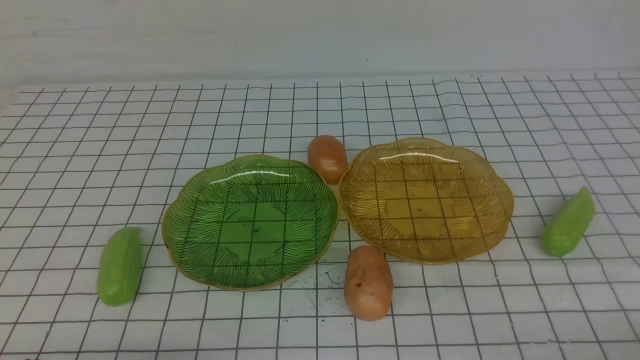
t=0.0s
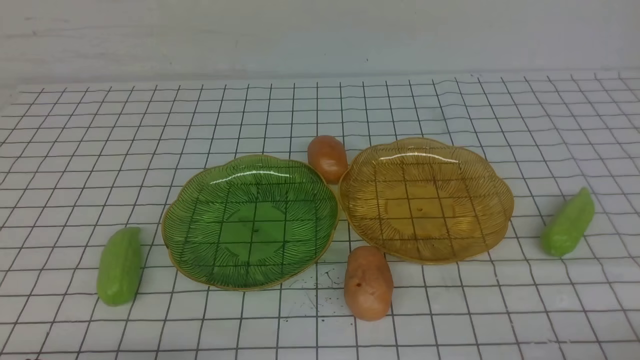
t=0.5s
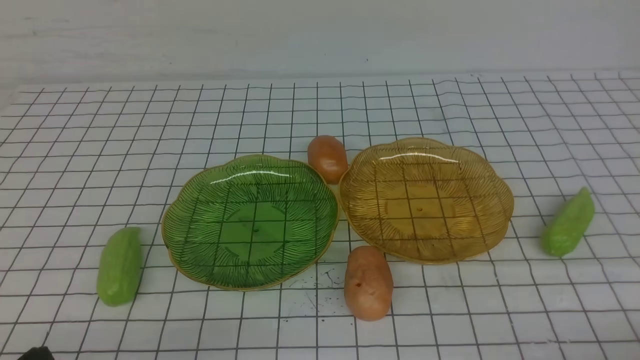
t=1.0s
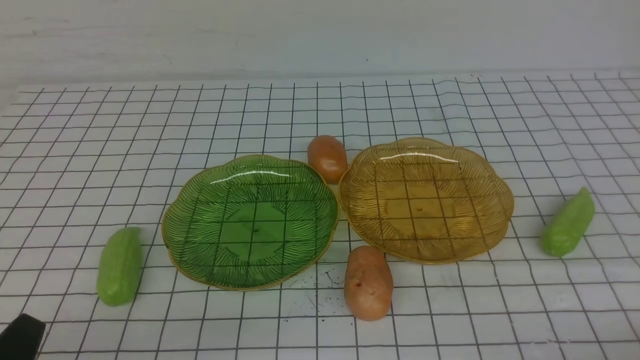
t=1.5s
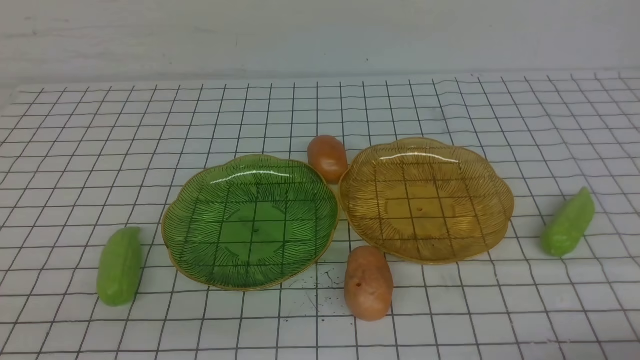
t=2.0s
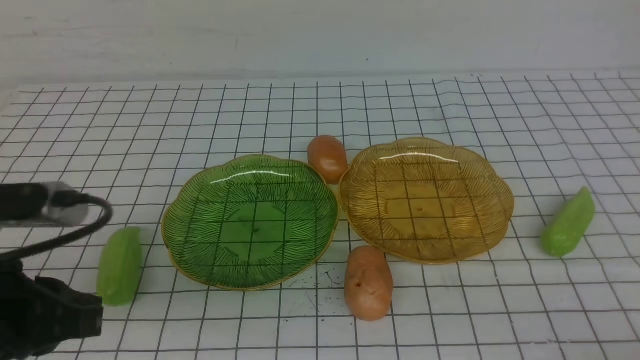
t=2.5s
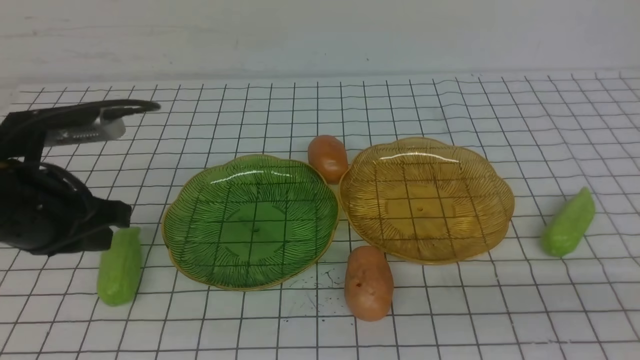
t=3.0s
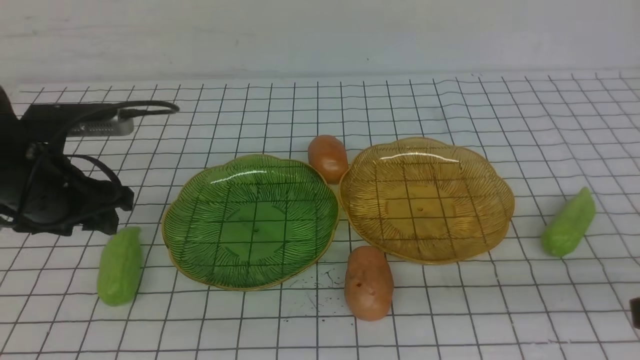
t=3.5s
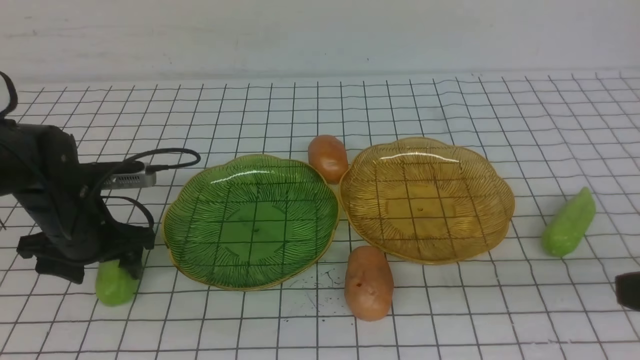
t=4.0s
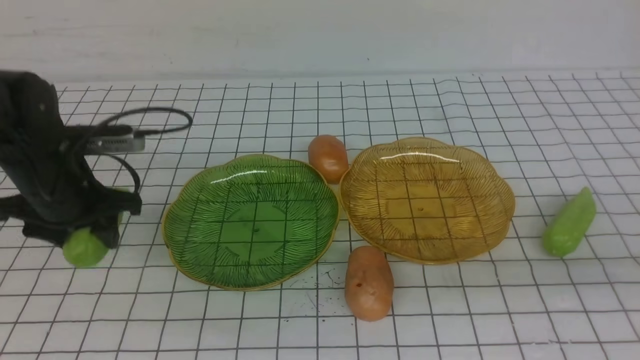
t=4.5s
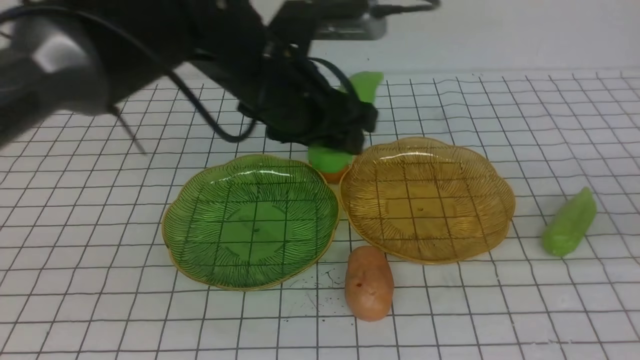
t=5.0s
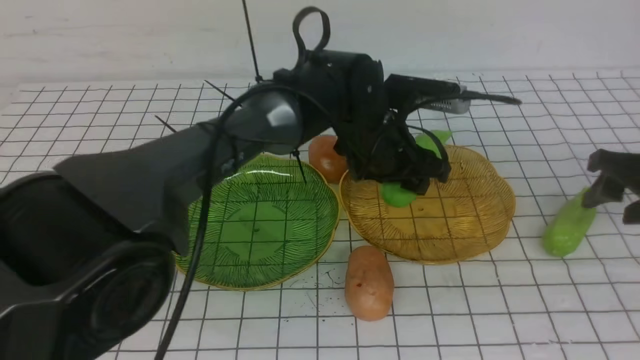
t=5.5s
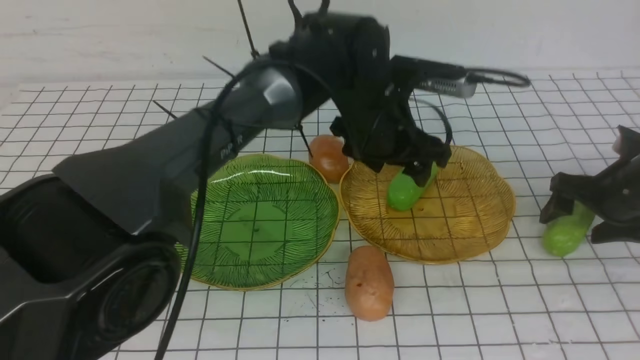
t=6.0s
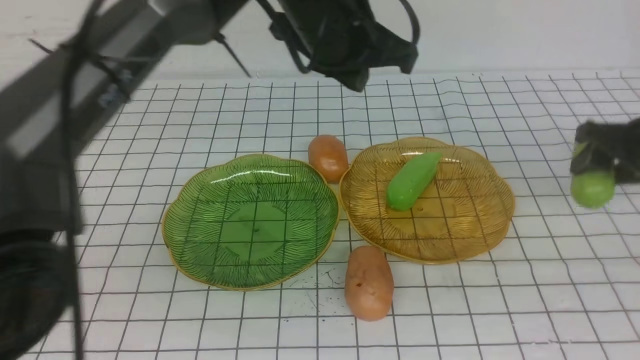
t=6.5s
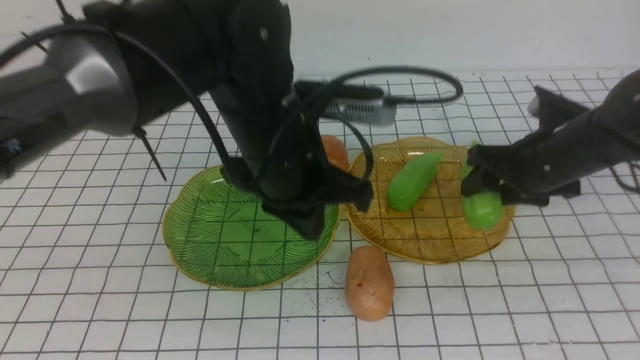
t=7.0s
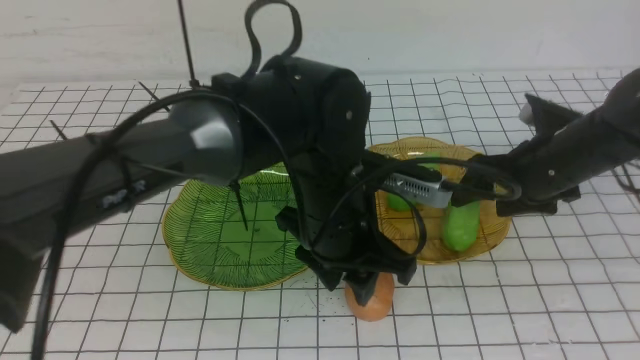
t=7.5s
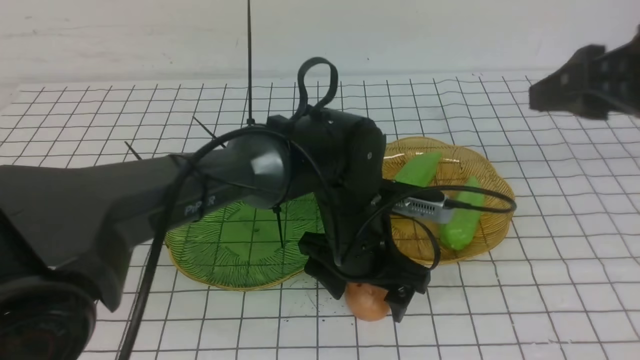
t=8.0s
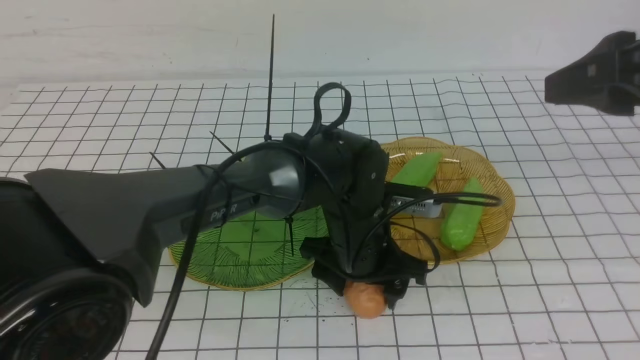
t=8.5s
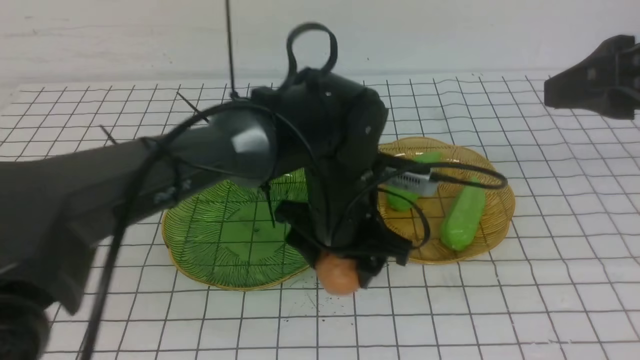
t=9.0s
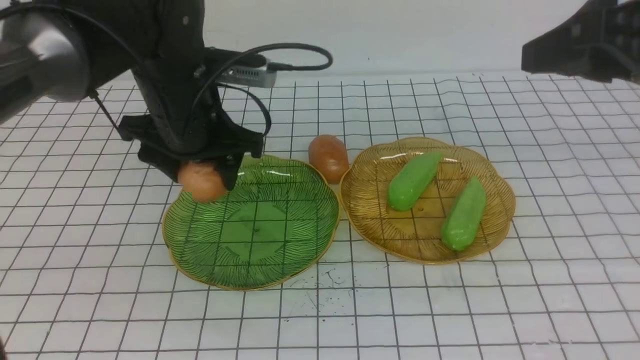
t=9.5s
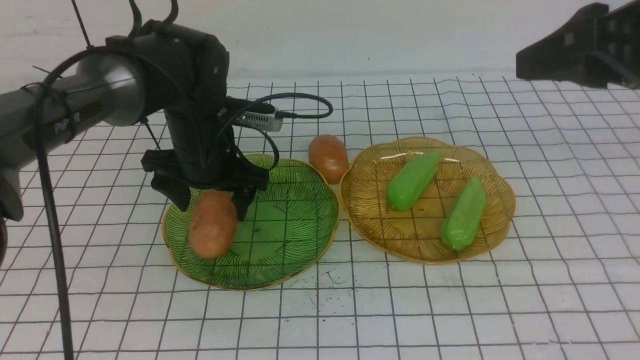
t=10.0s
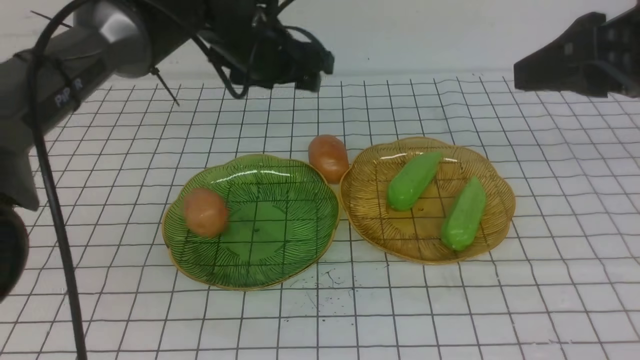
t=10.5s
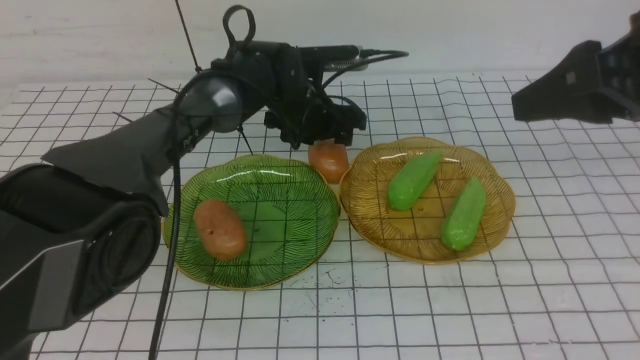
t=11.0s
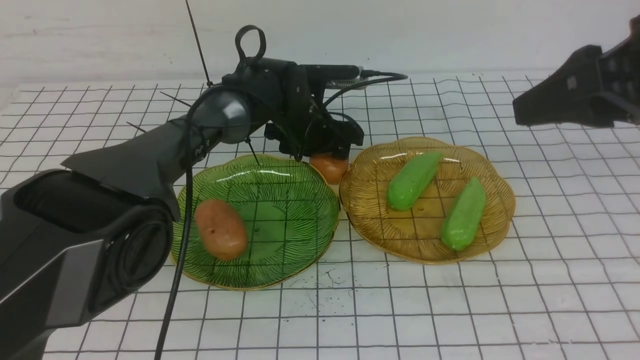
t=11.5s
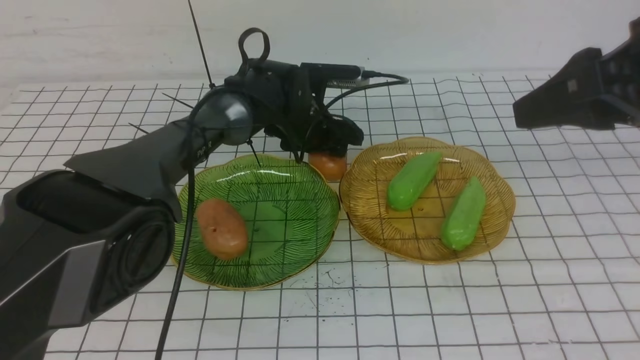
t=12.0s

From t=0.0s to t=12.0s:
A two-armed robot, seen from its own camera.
Step, from t=0.0s to t=6.0s: use the left arm to grab a chayote and put it into the right plate.
Step, from t=6.5s to t=7.5s: use the right arm to grab a chayote and put it into the right plate.
Step, from t=8.0s to t=9.5s: Grab a potato with your left arm and put it on the left plate.
From t=2.0s to t=4.0s: The left gripper is displaced forward by approximately 30 cm, and opens its fingers. The right gripper heads upward, covering approximately 15 cm.
From t=4.0s to t=6.0s: The right gripper goes some 30 cm forward and downward, and opens. Meanwhile the left gripper shifts about 30 cm to the right.
From t=6.0s to t=8.0s: The right gripper moves upward, to the left and backward, approximately 25 cm. The left gripper shifts some 10 cm backward, travels upward and back again, approximately 10 cm each way, and closes, then reopens.
From t=8.0s to t=10.0s: The right gripper ends up about 5 cm from where it was. The left gripper moves to the left and forward, about 20 cm.
From t=10.0s to t=12.0s: The left gripper goes roughly 15 cm forward, to the right and downward.

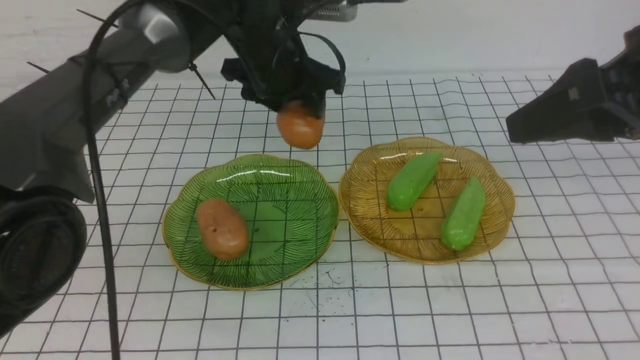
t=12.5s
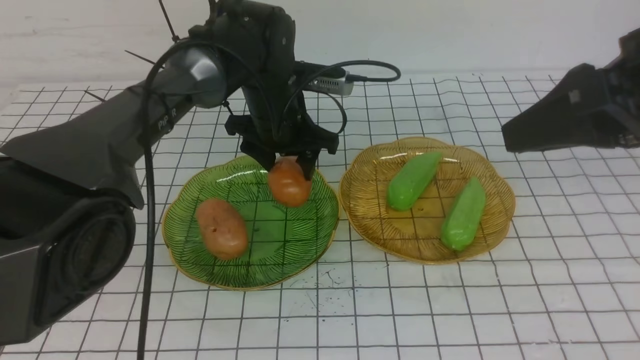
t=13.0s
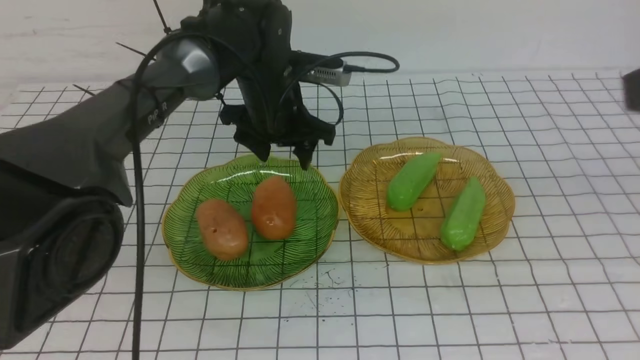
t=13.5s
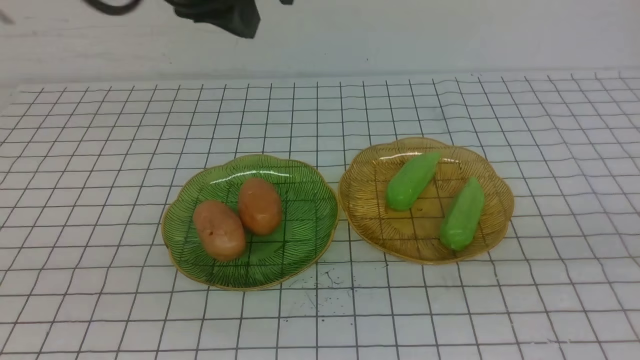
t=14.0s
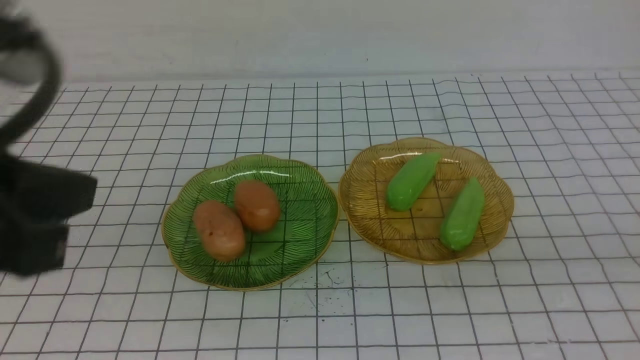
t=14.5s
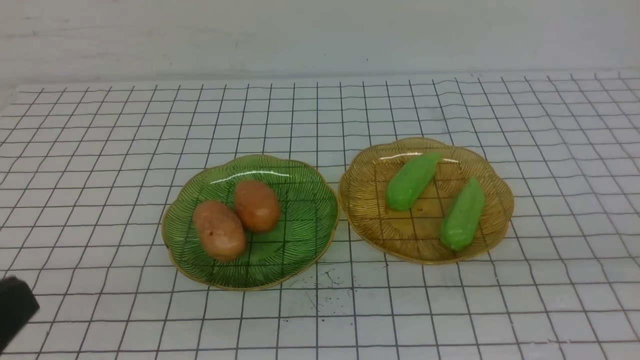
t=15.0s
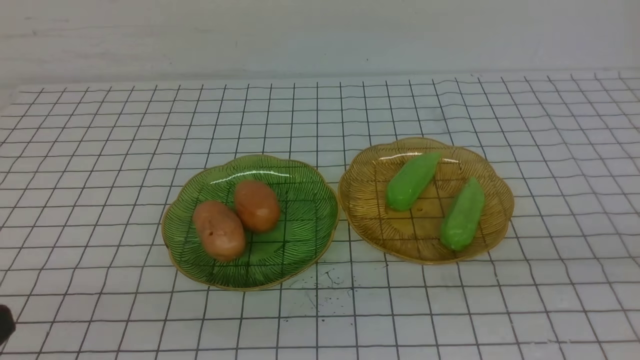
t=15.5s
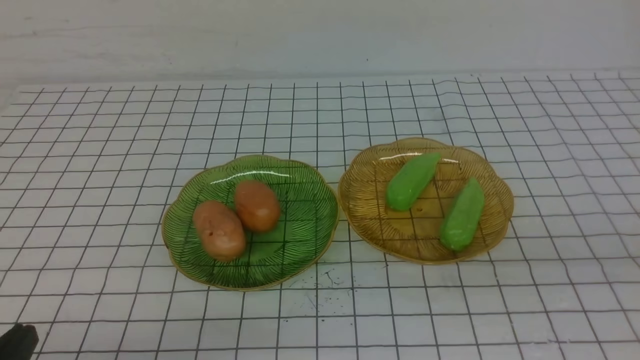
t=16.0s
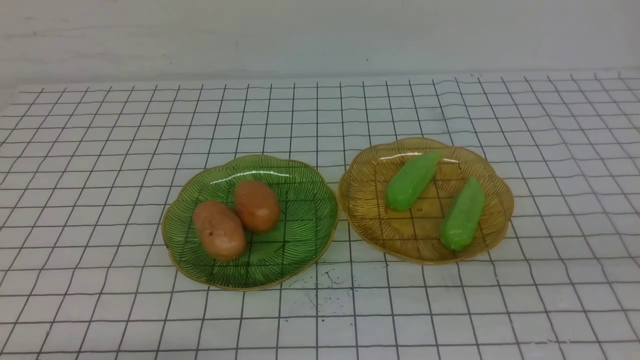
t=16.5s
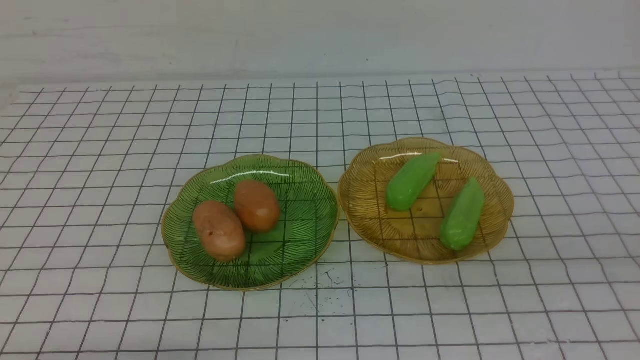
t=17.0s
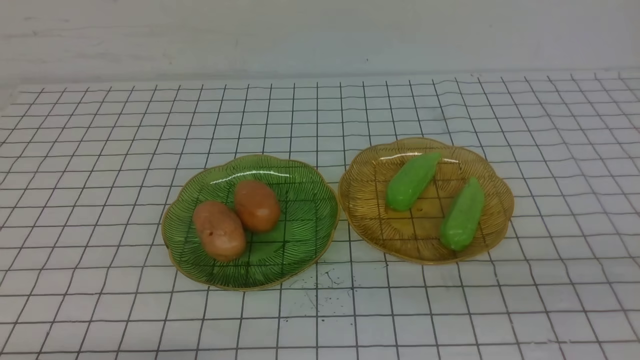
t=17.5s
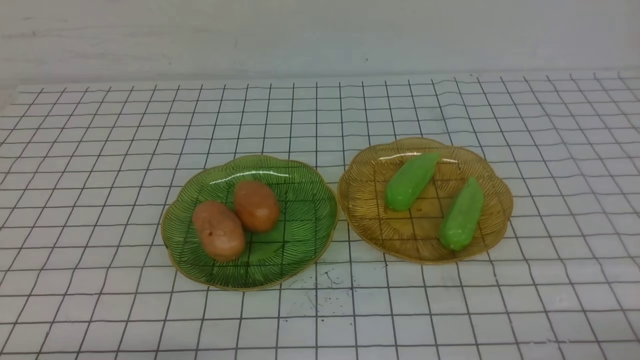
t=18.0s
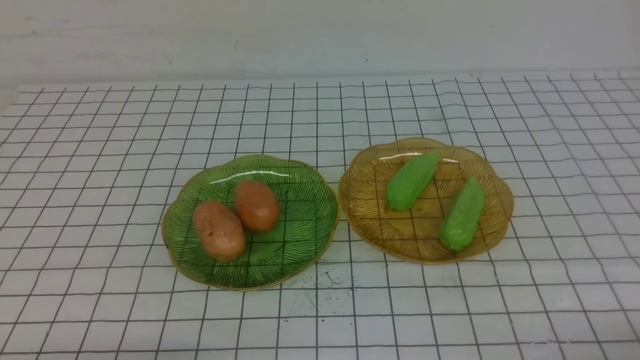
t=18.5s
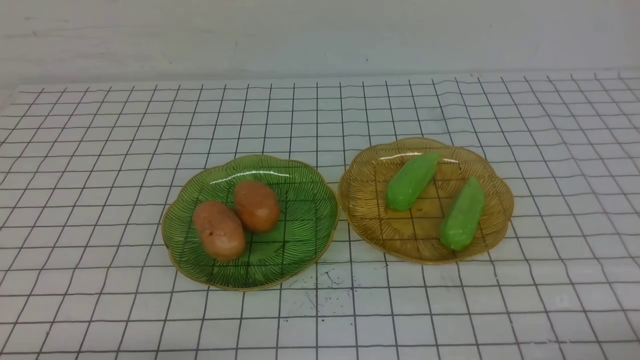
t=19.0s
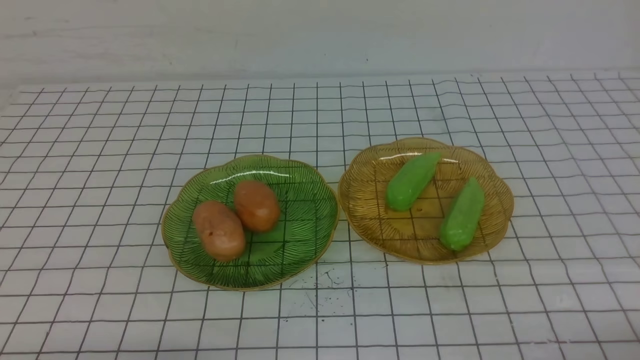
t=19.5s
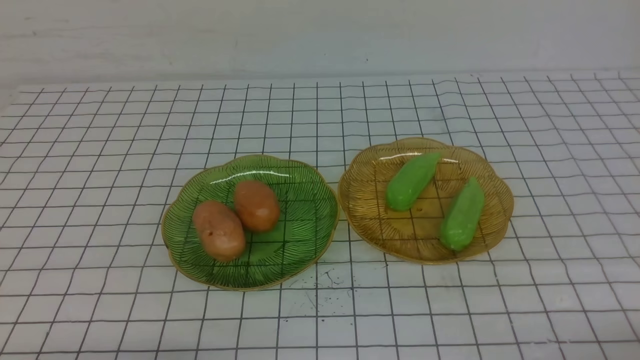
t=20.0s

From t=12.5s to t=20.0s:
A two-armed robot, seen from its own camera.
From t=12.5s to t=14.5s: The left gripper moves backward, upward and to the left, about 35 cm, and closes up. Meanwhile the right gripper goes approximately 20 cm backward, and closes.
From t=14.5s to t=16.5s: The left gripper shifts roughly 25 cm downward.
